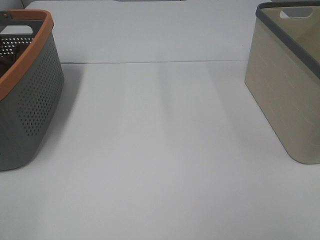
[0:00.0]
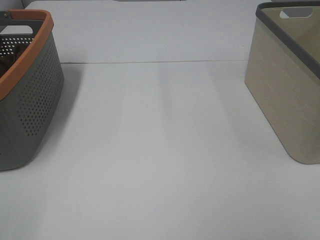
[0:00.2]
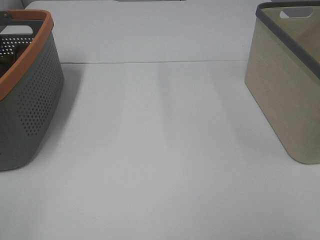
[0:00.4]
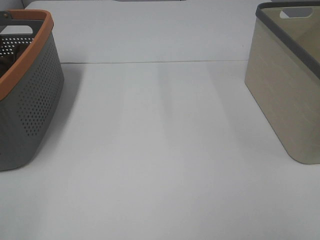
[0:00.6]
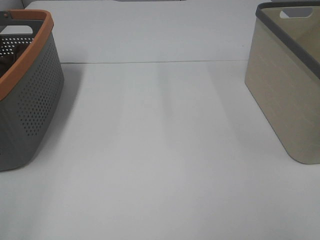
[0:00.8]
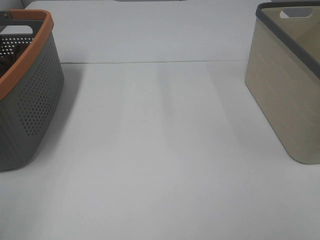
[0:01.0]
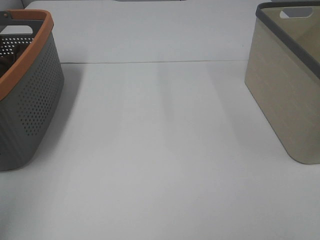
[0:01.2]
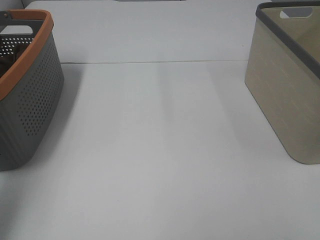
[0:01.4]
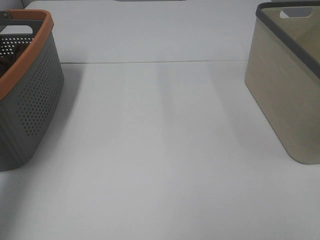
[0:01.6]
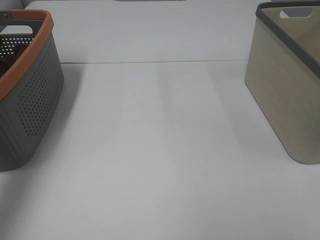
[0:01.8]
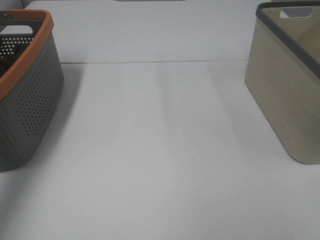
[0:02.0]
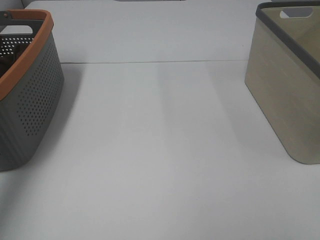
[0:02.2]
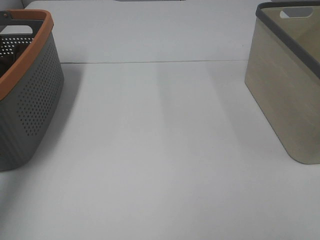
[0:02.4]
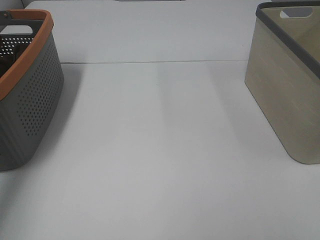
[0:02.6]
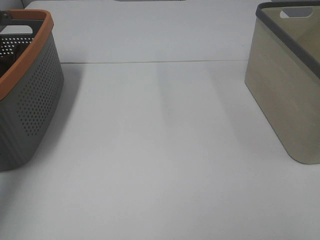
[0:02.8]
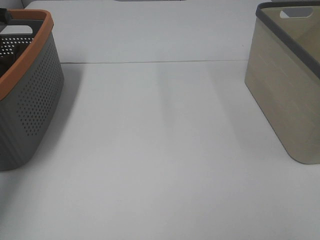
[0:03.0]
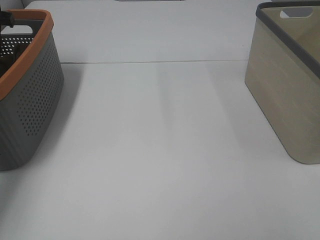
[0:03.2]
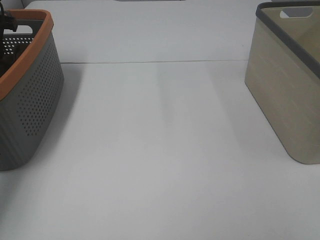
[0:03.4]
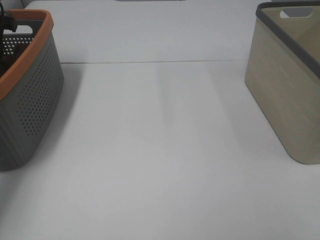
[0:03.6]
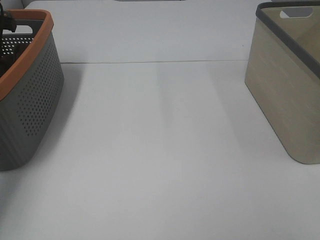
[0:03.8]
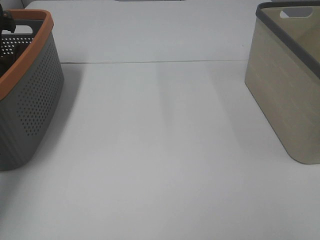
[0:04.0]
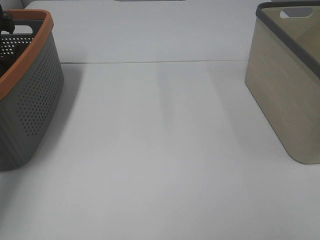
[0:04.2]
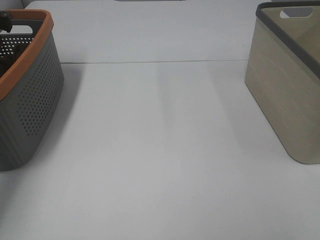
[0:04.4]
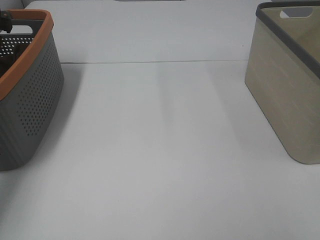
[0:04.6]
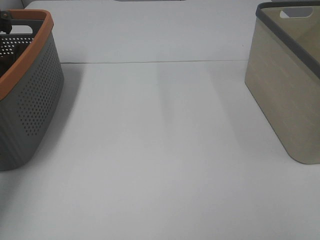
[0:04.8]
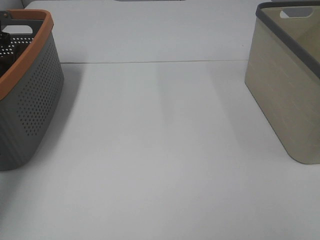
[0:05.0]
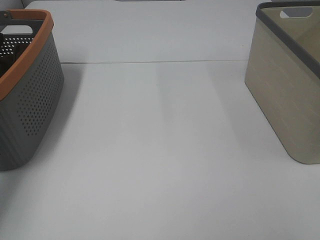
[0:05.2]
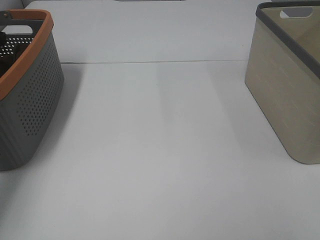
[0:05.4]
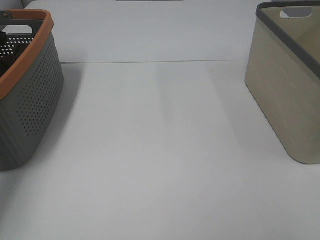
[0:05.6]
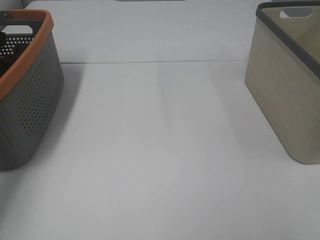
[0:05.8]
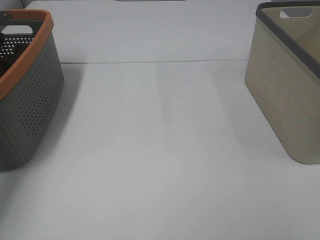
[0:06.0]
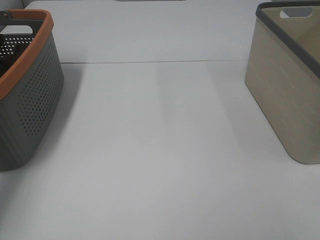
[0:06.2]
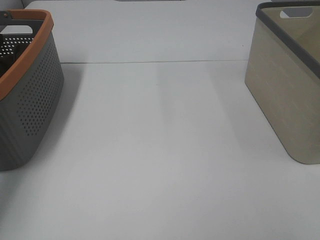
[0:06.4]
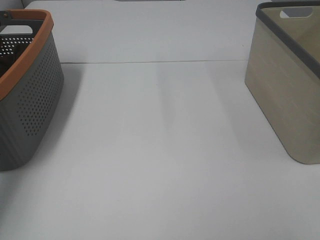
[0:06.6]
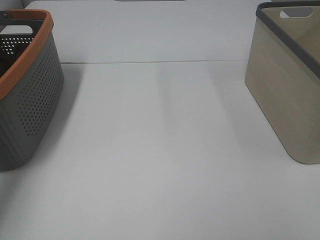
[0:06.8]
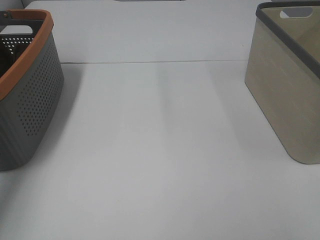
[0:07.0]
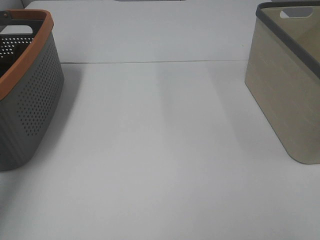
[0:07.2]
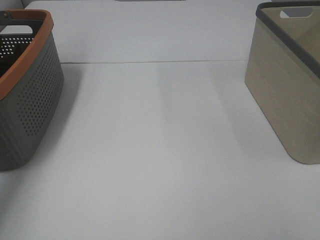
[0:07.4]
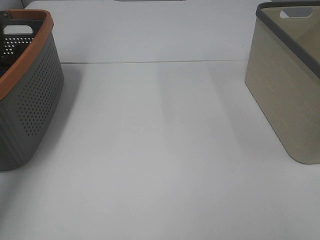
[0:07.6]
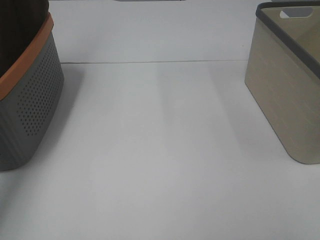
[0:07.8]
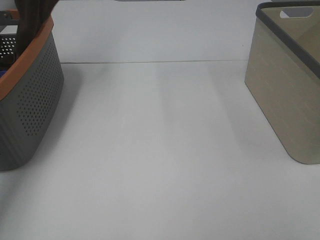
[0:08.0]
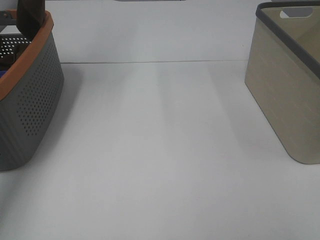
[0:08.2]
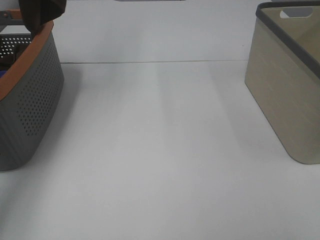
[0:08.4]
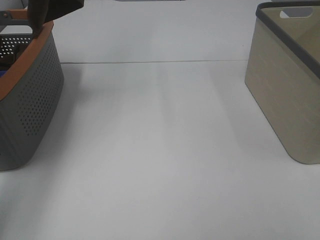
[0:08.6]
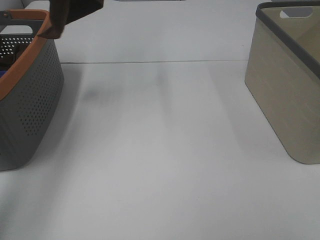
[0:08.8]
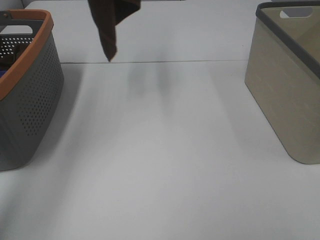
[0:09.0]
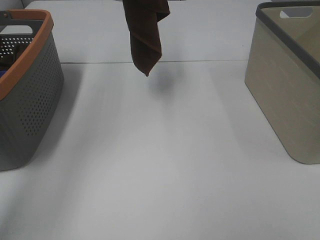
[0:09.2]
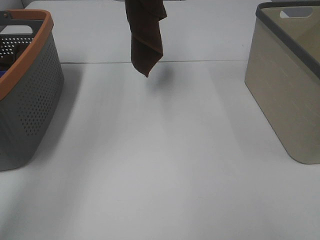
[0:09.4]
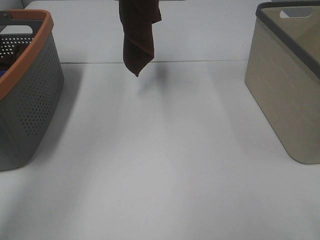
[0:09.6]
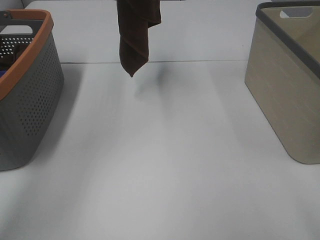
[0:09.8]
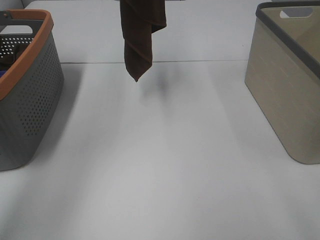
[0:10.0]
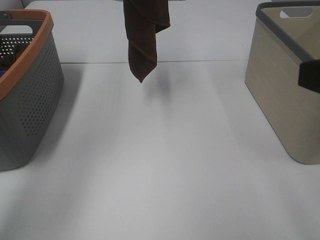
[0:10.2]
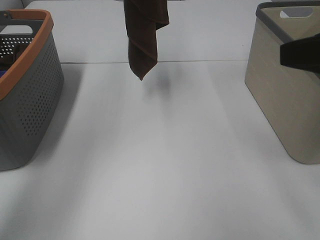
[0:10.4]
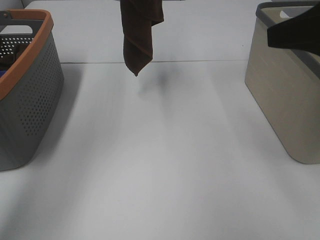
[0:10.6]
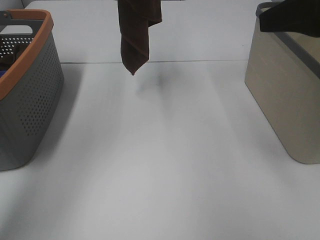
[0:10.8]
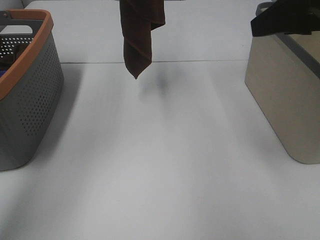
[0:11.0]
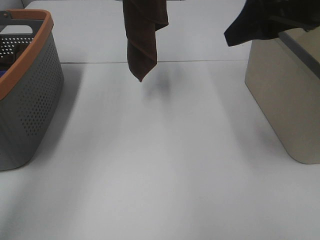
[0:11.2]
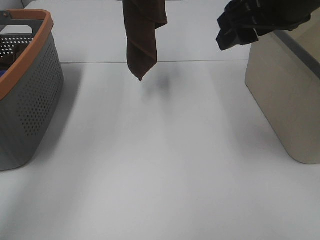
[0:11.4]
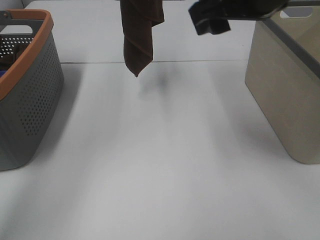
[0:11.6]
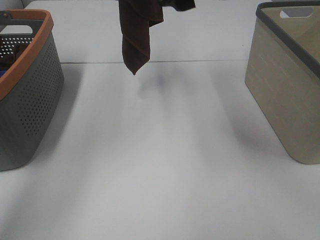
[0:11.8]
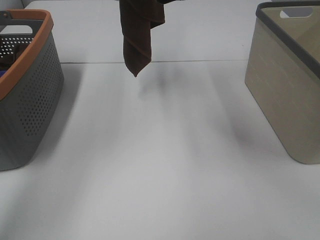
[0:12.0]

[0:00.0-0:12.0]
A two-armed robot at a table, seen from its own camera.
Task of the whole recording: Remove the towel and place it.
0:00.0 to 0:01.6: The left gripper moves forward and upward, approximately 25 cm.
0:01.6 to 0:03.0: The left gripper is displaced forward and downward by some 25 cm.
0:07.6 to 0:09.0: The left gripper goes about 15 cm to the right and upward.
0:09.0 to 0:10.4: The left gripper heads to the right, covering some 5 cm; the right gripper heads forward, covering about 15 cm.
0:10.4 to 0:12.0: The right gripper heads to the left and forward, covering about 20 cm.

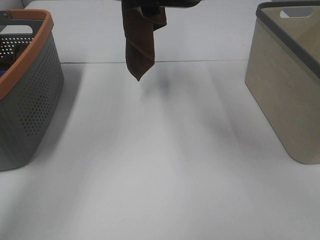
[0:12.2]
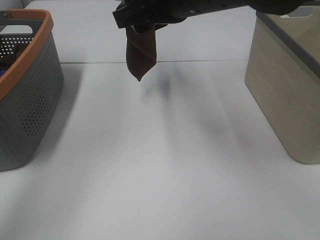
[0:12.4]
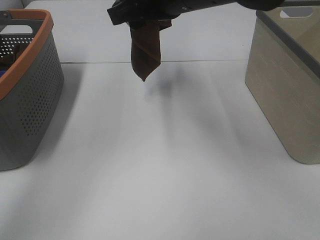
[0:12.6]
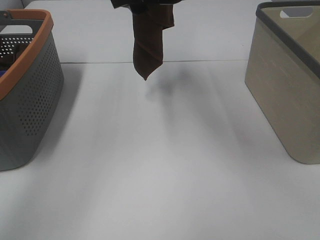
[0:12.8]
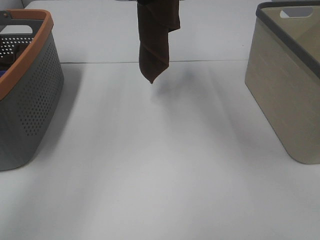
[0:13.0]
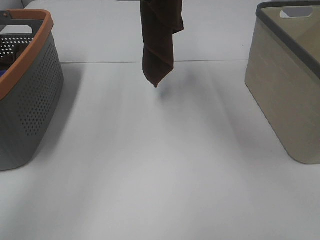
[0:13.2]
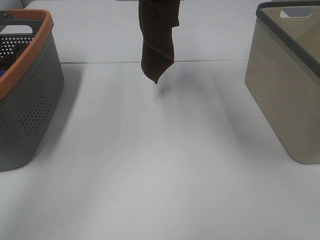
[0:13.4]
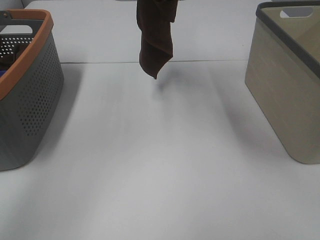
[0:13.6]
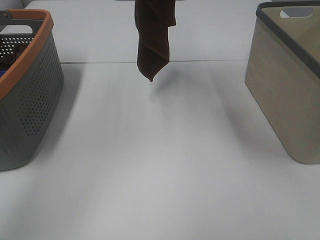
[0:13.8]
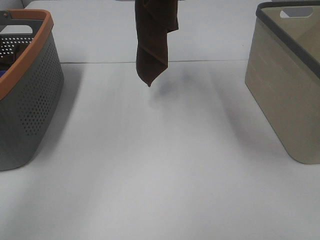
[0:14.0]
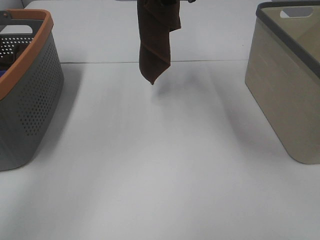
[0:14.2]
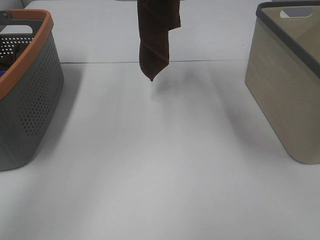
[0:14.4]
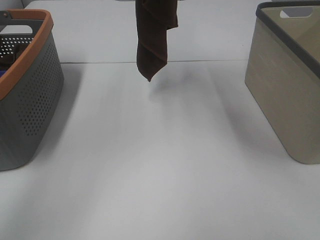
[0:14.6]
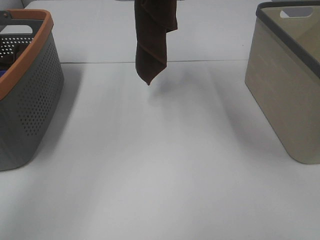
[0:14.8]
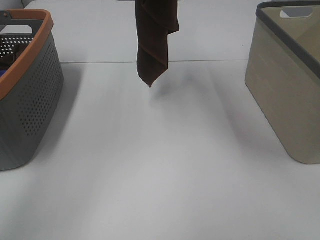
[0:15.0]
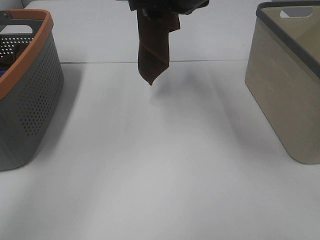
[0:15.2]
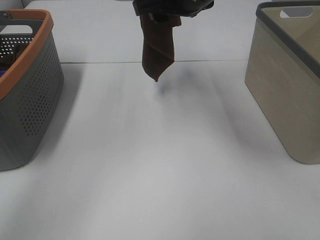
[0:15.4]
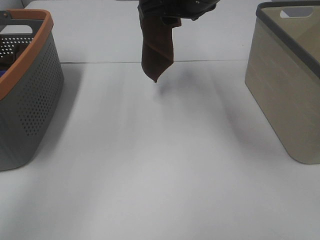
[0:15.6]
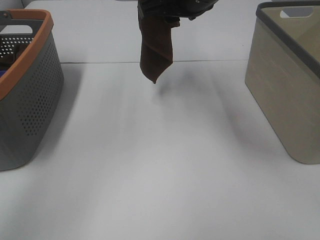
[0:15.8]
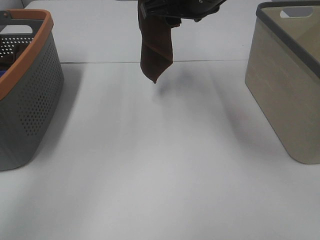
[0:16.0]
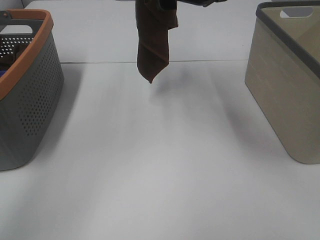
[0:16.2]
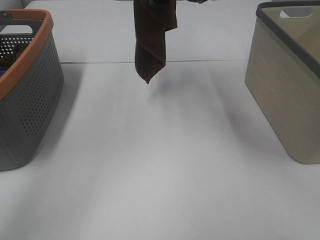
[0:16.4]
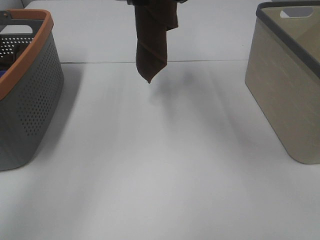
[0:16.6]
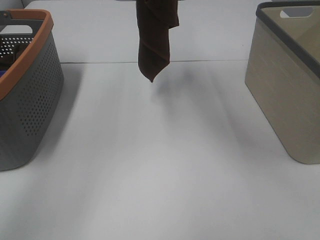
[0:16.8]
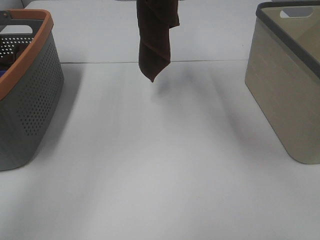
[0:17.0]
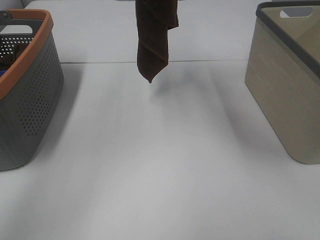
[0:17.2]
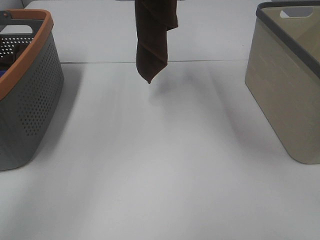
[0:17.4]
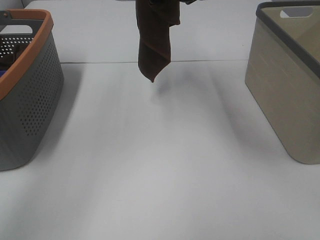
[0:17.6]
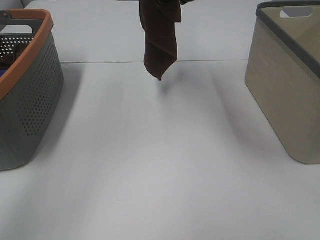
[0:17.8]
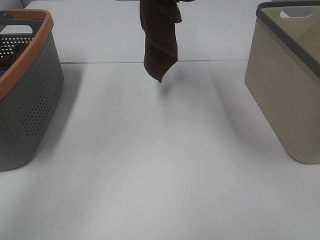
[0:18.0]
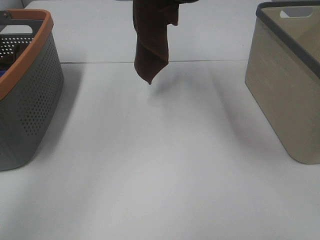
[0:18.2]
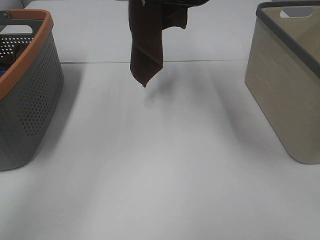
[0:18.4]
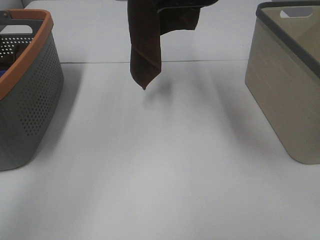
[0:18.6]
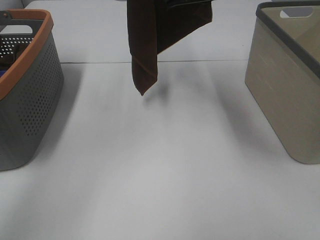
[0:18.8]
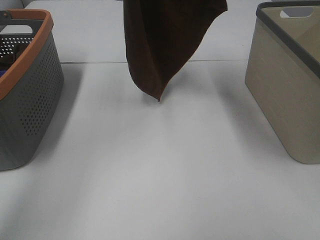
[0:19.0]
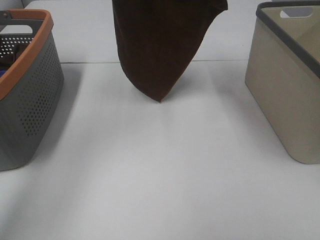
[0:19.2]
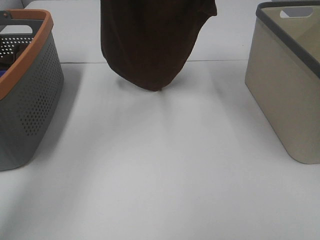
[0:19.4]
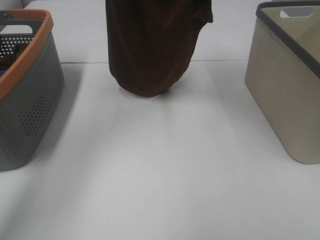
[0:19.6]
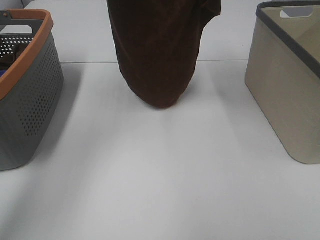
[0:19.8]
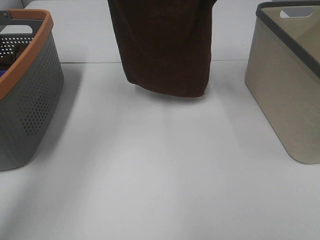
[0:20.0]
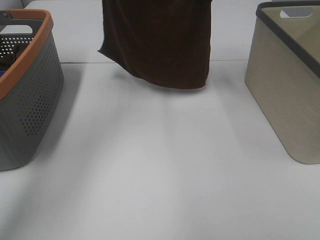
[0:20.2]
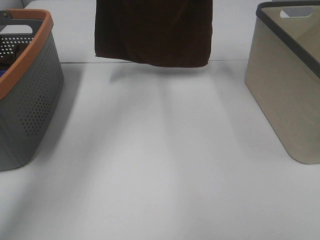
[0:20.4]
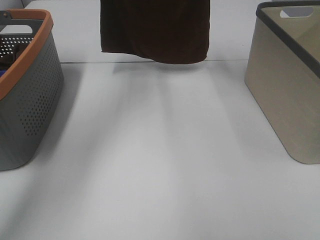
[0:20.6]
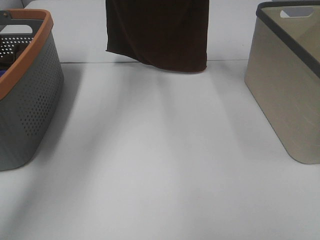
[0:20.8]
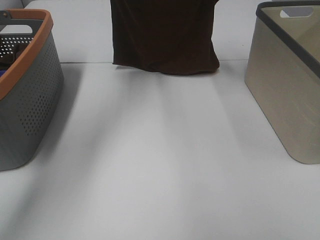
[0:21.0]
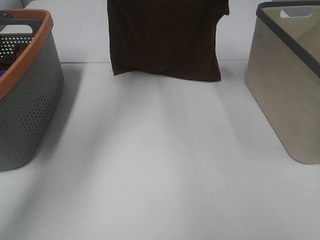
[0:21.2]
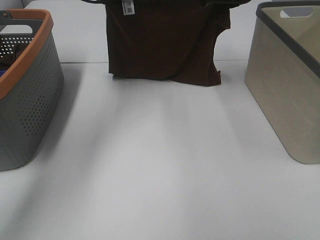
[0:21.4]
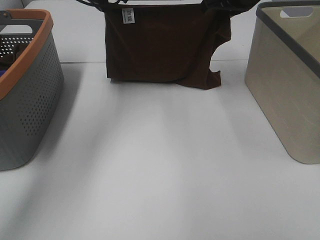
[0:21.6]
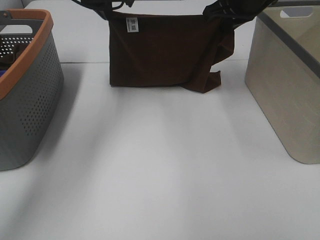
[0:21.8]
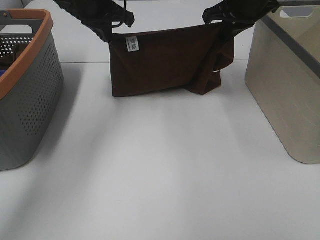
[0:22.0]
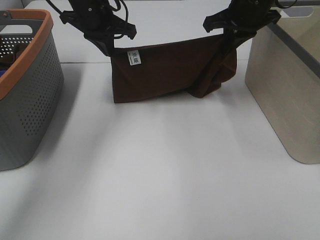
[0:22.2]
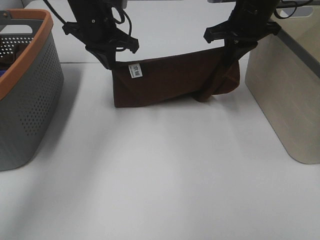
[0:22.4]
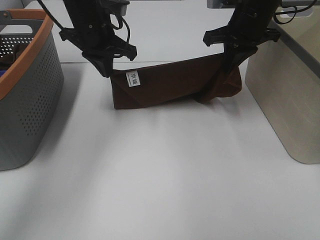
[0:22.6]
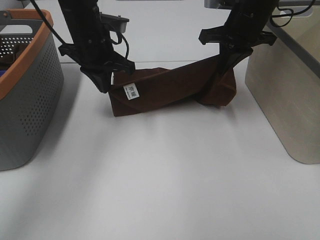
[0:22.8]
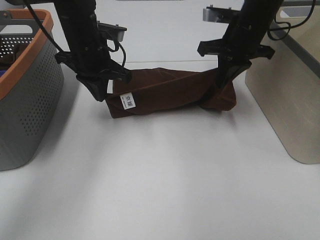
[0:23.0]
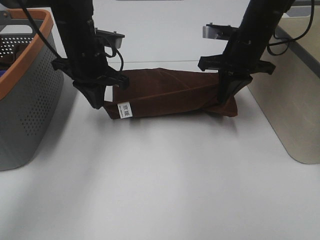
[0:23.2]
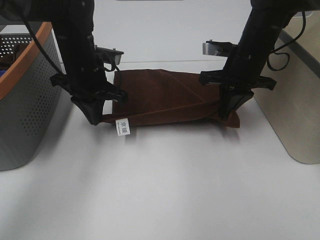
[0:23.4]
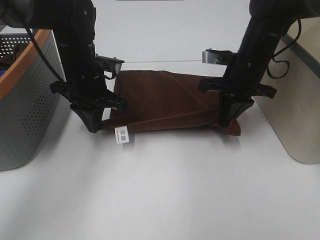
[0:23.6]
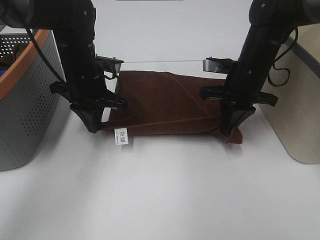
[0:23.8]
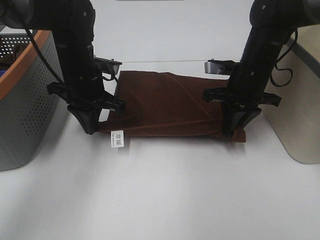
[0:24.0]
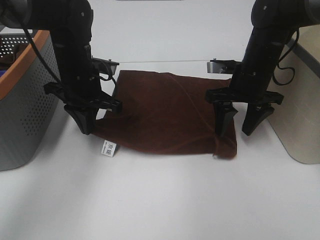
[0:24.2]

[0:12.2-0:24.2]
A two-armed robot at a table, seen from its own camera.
Task of the whole recording: Remove the towel and place it.
Step, 0:12.2 to 0:15.0: Right hand: grab a corner of the brown towel and straighten it.
Step, 0:15.2 to 0:18.8: Right hand: spread the brown towel flat on the table.
Step, 0:15.2 to 0:19.2: Left hand: spread the brown towel flat on the table.
0:12.2 to 0:13.8: The right gripper heads forward, covering about 5 cm.
0:13.8 to 0:16.6: The grippers make only small movements.
0:16.6 to 0:18.2: The right gripper closes.
0:18.2 to 0:19.8: The right gripper goes about 10 cm to the right. Meanwhile the left gripper shifts some 10 cm downward and to the left.
0:19.8 to 0:21.2: The right gripper is displaced forward and downward by about 10 cm, while the left gripper goes about 10 cm downward and forward.
0:21.2 to 0:22.6: The left gripper is displaced downward and backward by roughly 10 cm, while the right gripper shifts about 5 cm downward.
0:22.6 to 0:24.2: The grippers both shift downward and backward by roughly 10 cm. The right gripper opens up.
